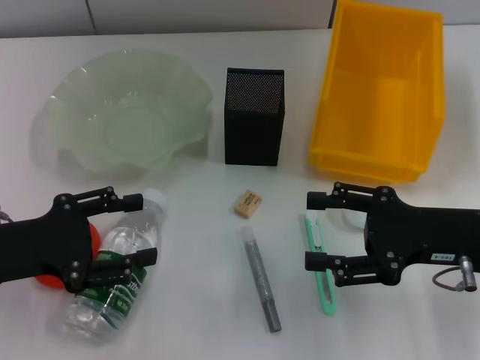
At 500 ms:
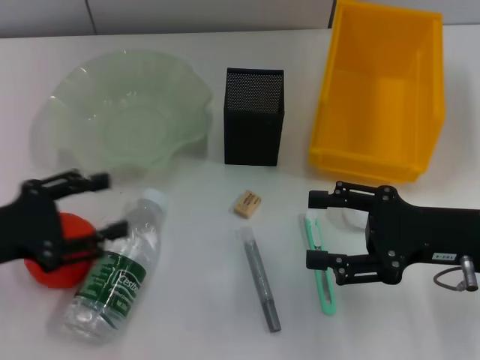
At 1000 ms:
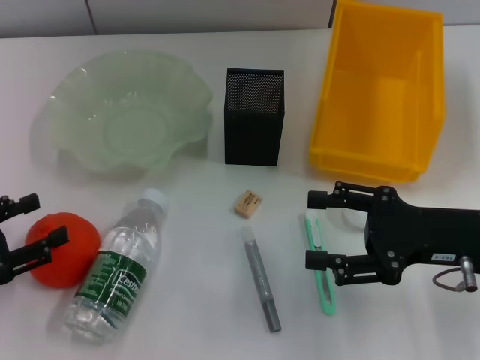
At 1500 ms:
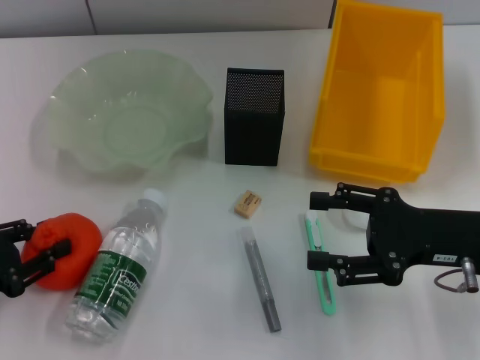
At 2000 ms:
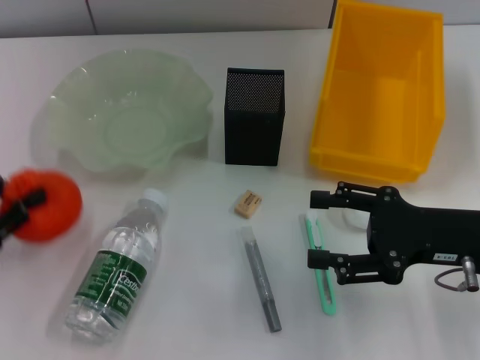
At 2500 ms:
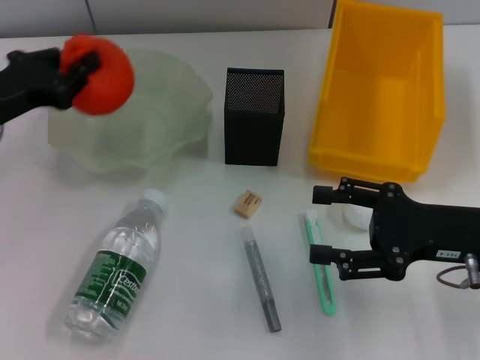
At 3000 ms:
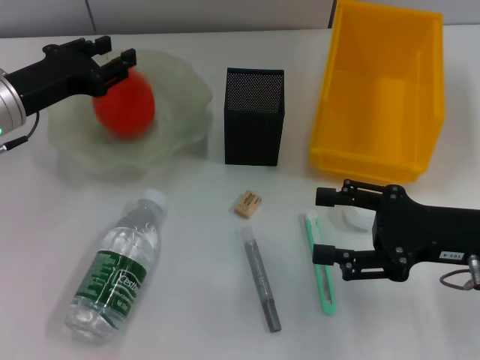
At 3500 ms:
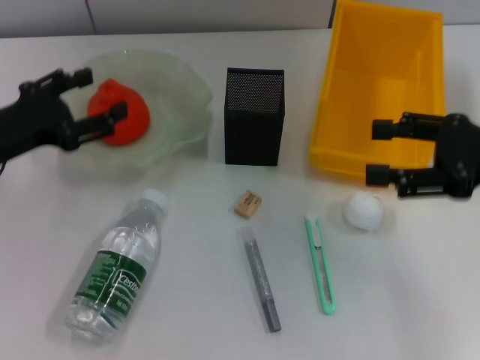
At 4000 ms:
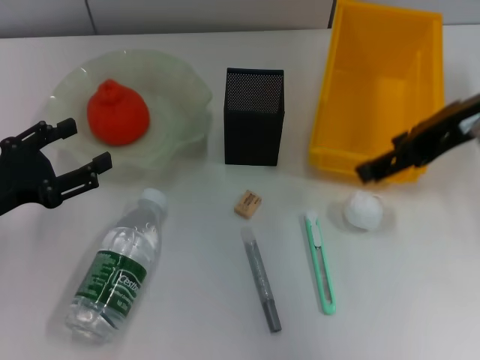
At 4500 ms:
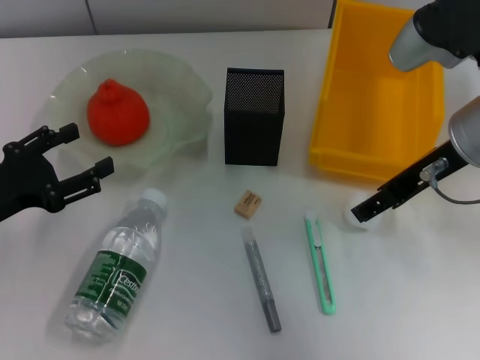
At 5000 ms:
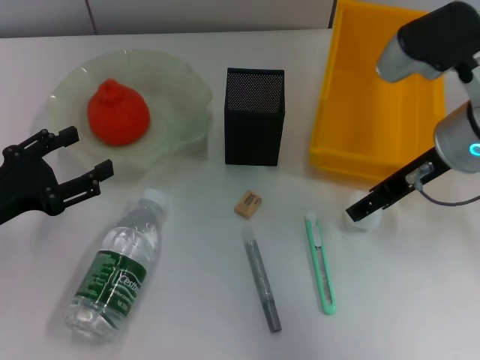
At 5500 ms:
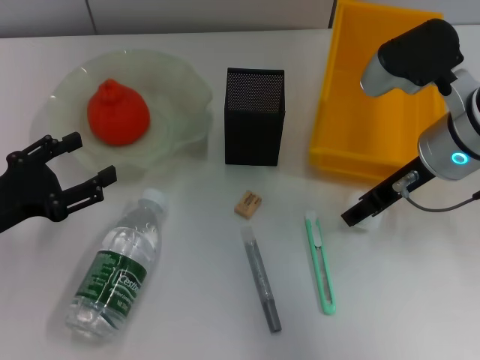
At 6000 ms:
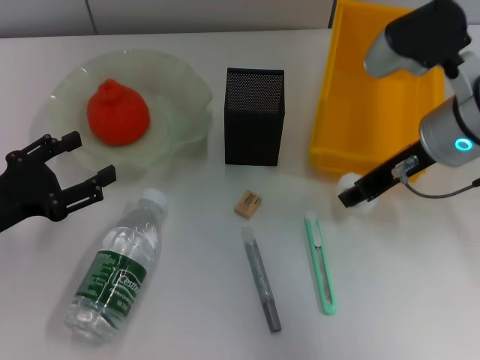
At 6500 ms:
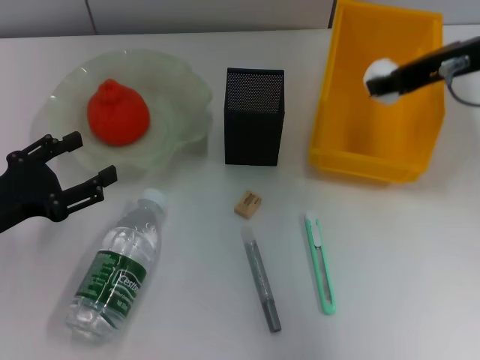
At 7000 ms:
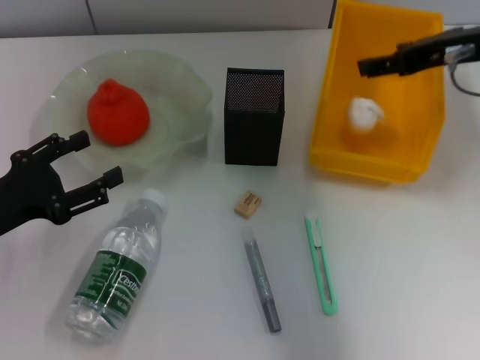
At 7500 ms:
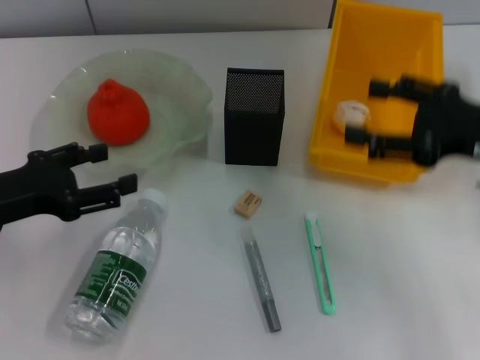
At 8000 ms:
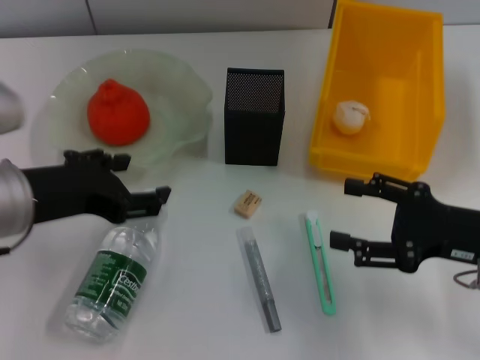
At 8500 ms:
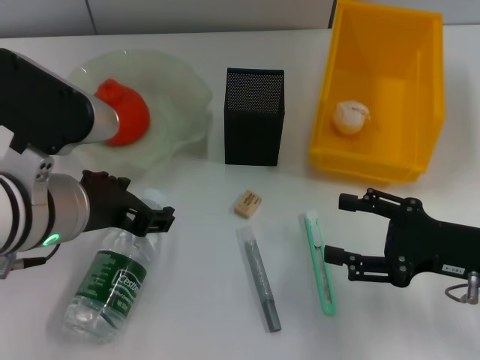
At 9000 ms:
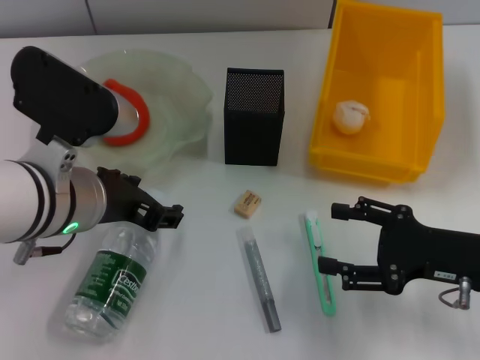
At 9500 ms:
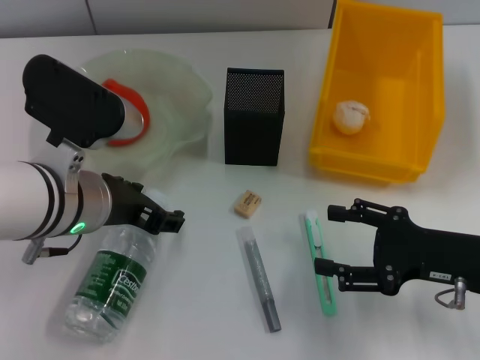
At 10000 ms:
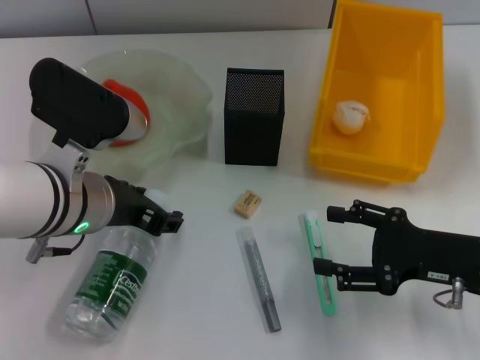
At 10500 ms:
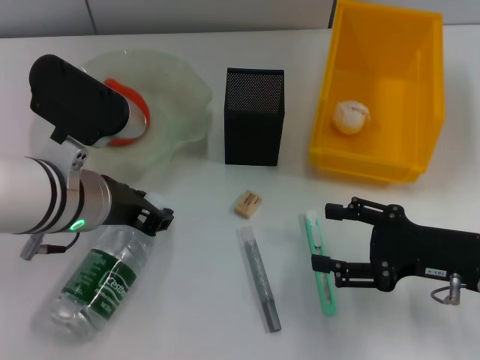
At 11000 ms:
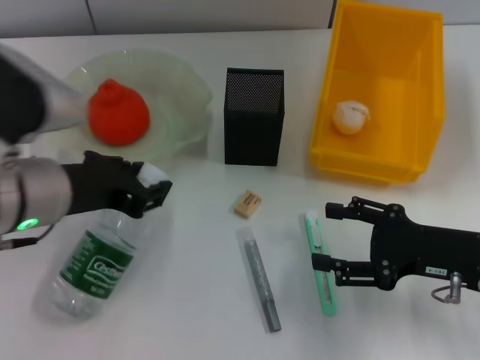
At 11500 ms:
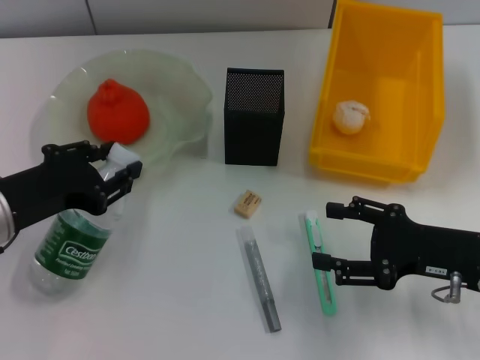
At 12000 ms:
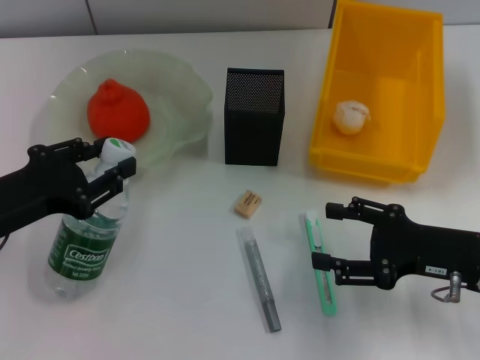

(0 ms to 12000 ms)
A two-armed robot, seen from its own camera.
Step, 0 ms - 1500 ms: Grab the orange with the left hand.
Step, 2000 ms - 3000 ms: Place the orange into the fruit bowl with the left hand.
Step, 3500 ms - 5500 ms: Grab the paper ball with the right hand.
Step, 6000 ms - 7000 ms: Place the paper ball into the trash can with the right hand.
Step, 7500 ms - 10000 ms: Grab the water bottle with the left hand.
0 ms - 2000 ms: The left gripper goes roughly 5 cm to the left, and closes up.
2000 ms - 4000 ms: The left gripper travels forward and back again, some 15 cm each way, and opens. The right gripper moves upward, approximately 15 cm.
4000 ms - 6000 ms: The right gripper heads downward, covering some 10 cm, and closes its fingers.
6000 ms - 8000 ms: The right gripper shifts roughly 15 cm backward, to the right and downward, and opens its fingers. The left gripper travels to the right and upward by about 15 cm.
8000 ms - 10000 ms: The left gripper heads to the right, covering some 5 cm.
10000 ms - 12000 ms: The left gripper moves to the left, approximately 10 cm, and closes up.

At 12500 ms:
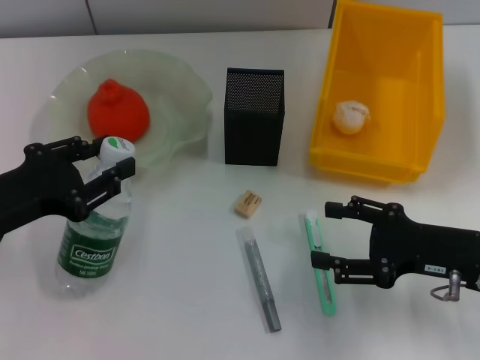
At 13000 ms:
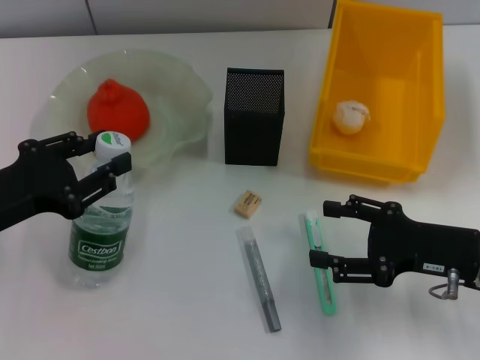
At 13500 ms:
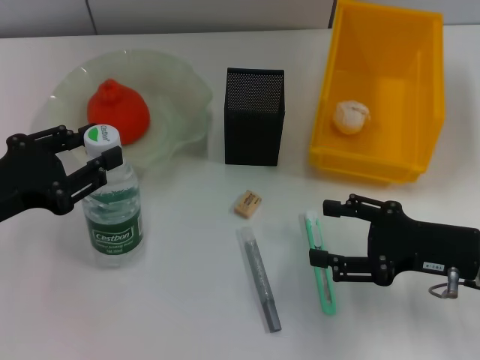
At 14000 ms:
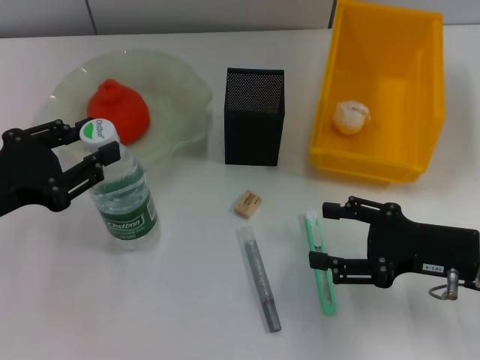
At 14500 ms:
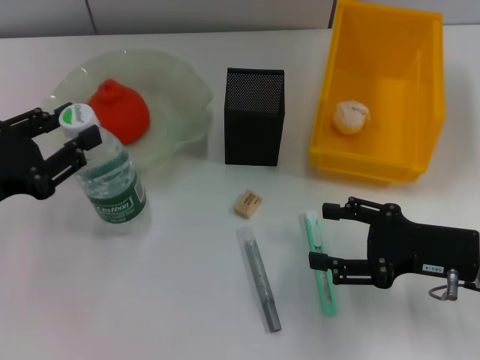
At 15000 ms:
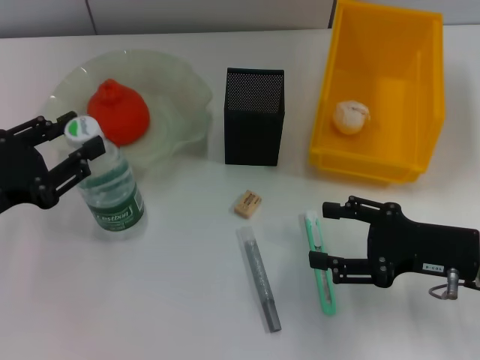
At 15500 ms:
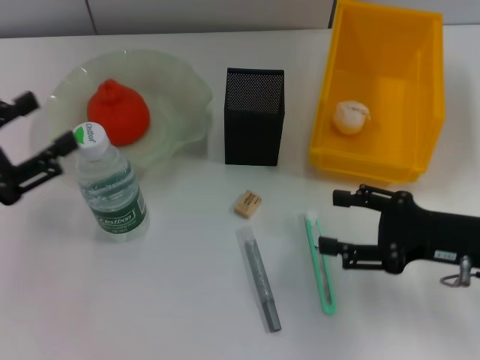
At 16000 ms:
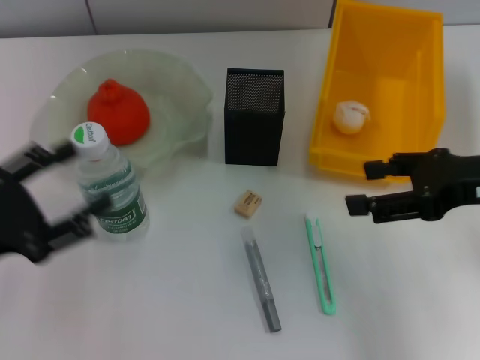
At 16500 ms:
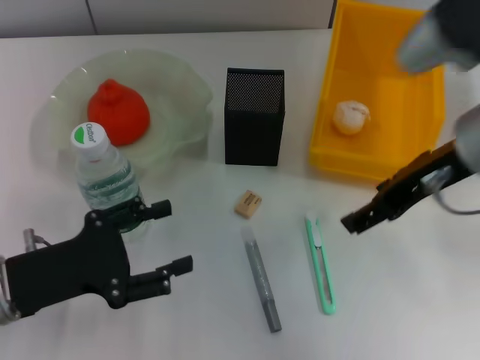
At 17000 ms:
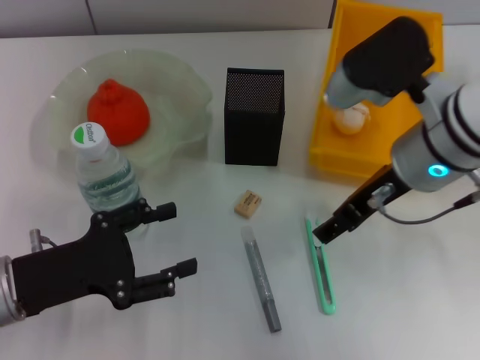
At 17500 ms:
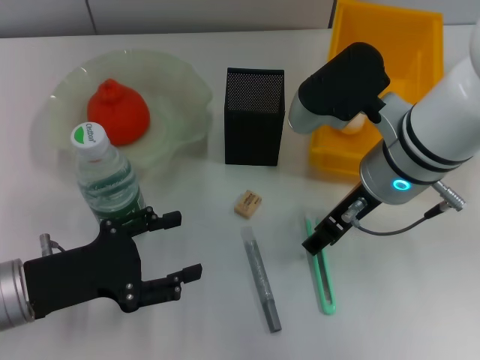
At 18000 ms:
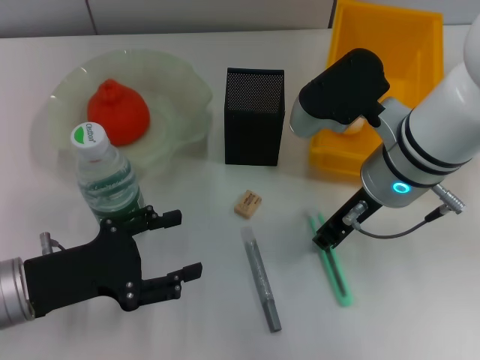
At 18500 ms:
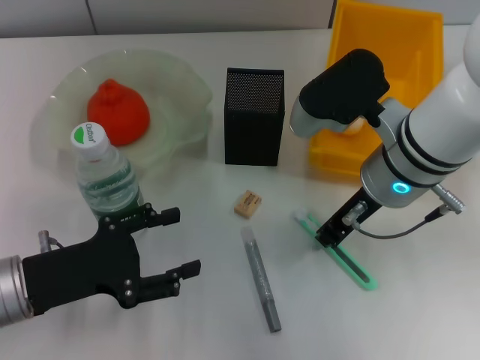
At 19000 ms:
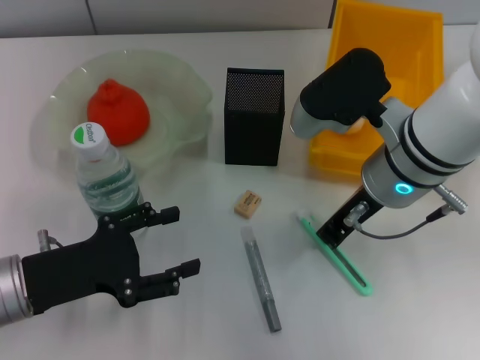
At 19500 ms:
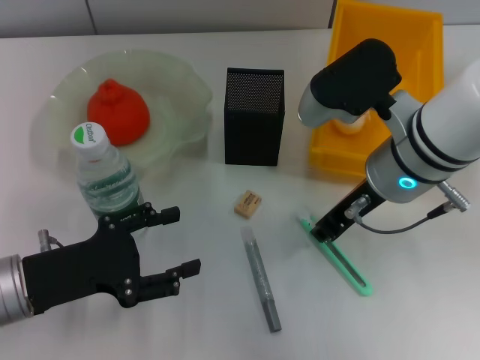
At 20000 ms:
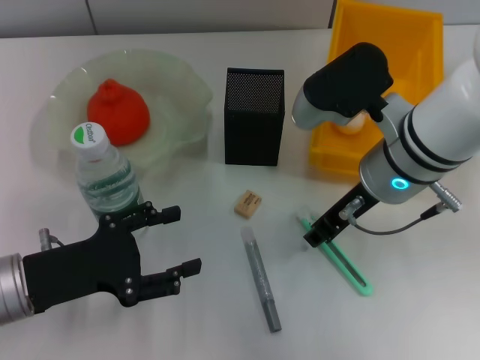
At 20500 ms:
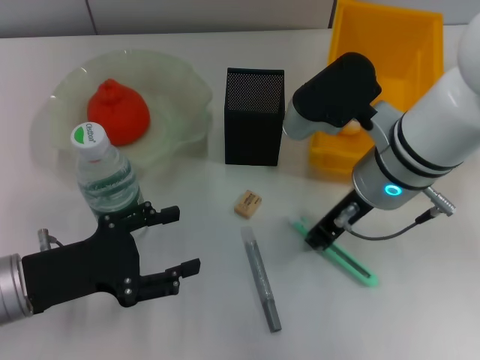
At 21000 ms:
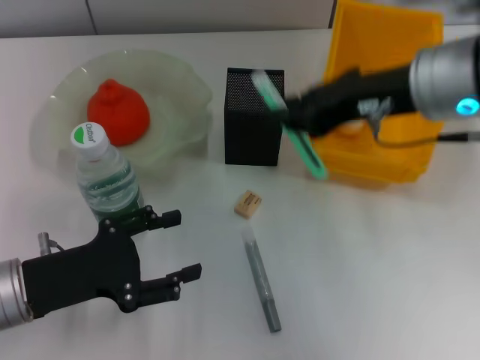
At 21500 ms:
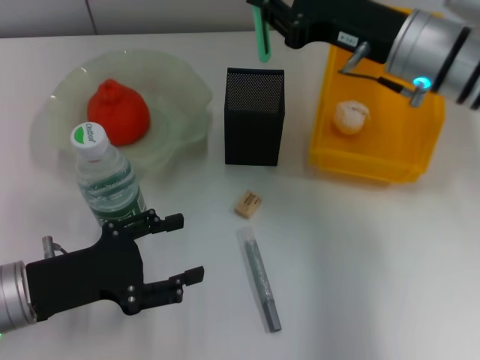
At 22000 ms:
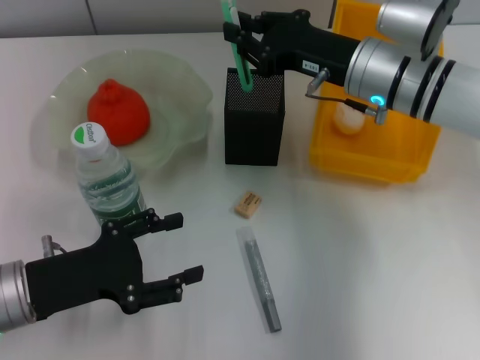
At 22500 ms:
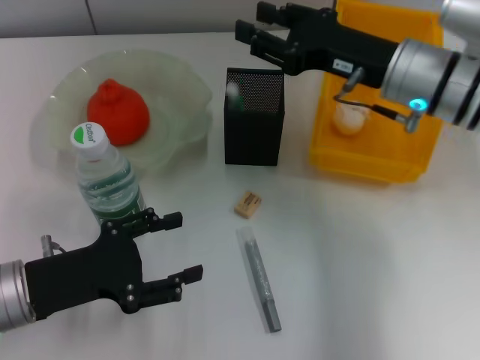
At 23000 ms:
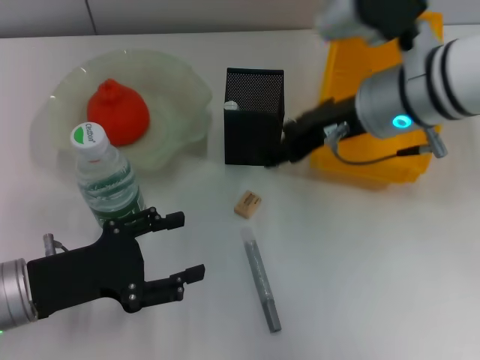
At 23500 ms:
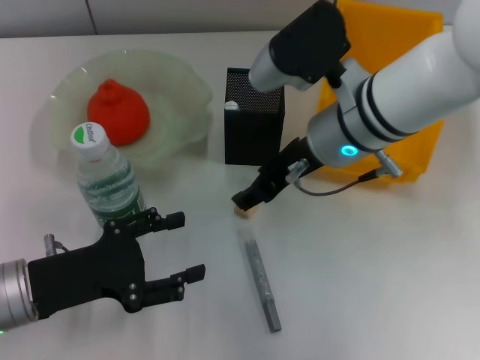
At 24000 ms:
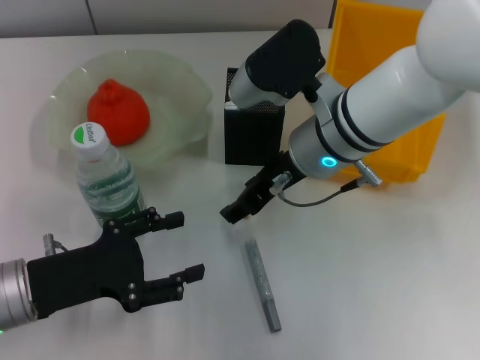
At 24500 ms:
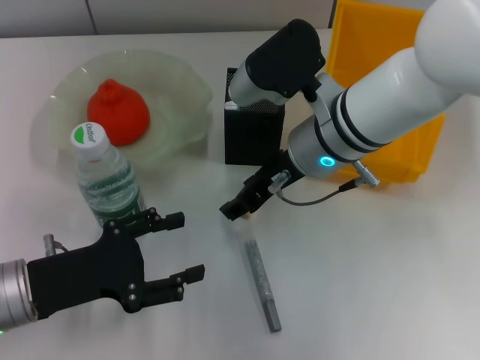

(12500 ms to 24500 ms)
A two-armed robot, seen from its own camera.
Step, 12500 ms - 15000 ms: Place the water bottle on the table with the left hand.
Step, 15500 ms - 20000 ms: Grab the blue utility knife with the right hand.
Step, 20500 ms - 22000 ms: Place the blue utility knife into the pen holder with the right hand.
12500 ms - 14500 ms: The grippers move only a little.
14500 ms - 16500 ms: The left gripper heads downward, covering roughly 5 cm, and opens. Meanwhile the right gripper shifts approximately 15 cm upward and to the left.
16500 ms - 18500 ms: The right gripper goes approximately 10 cm downward and to the left, and closes.
18500 ms - 20500 ms: Both grippers stay put.
20500 ms - 22500 ms: The right gripper heads to the right, covering roughly 5 cm, and travels upward and back again, about 10 cm each way.
22500 ms - 24500 ms: The right gripper goes approximately 10 cm to the left, and opens.

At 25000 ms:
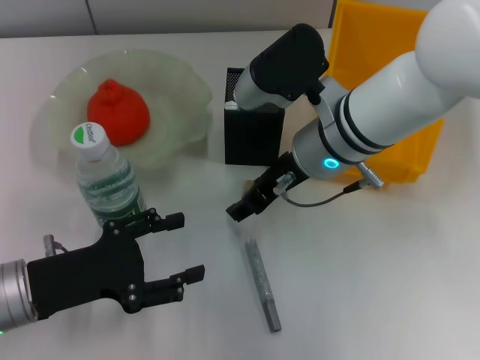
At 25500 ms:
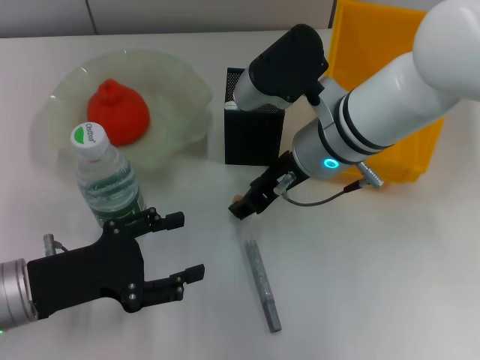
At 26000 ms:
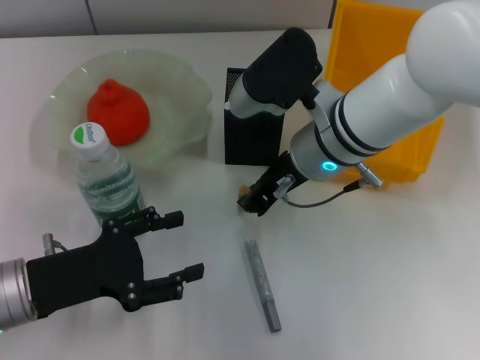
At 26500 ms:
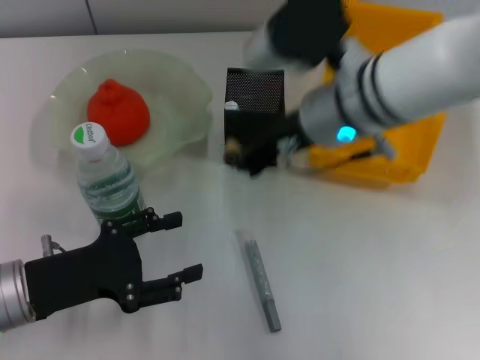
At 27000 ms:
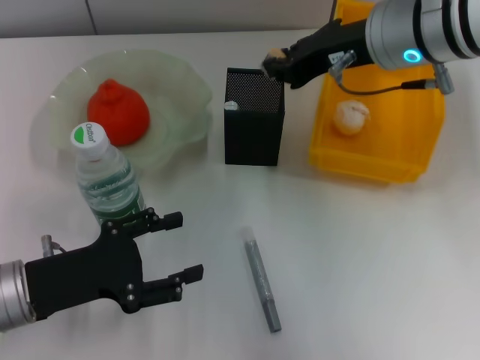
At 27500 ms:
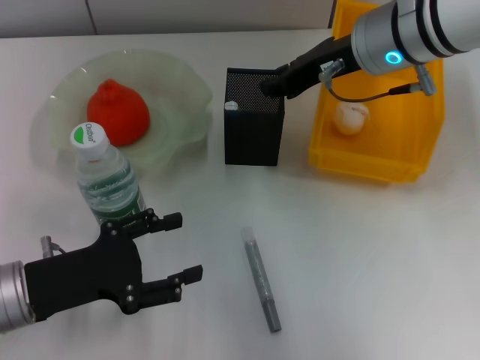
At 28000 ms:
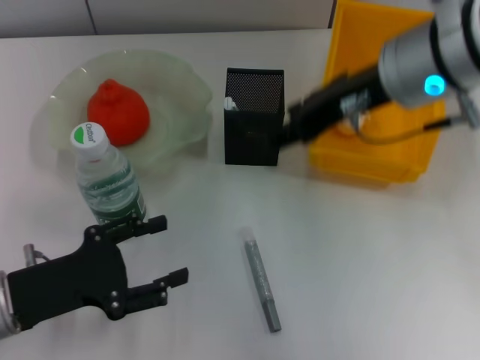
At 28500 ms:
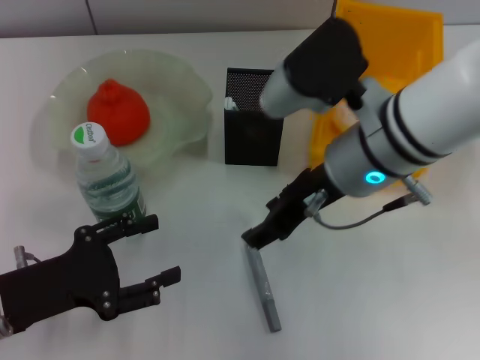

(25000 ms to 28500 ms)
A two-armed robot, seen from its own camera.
Step, 26500 ms - 27500 ms: Put the eraser into the pen holder with the right hand.
25000 ms - 27000 ms: The right gripper moves upward and to the right, roughly 10 cm, and closes its fingers.
27000 ms - 28500 ms: The right gripper is displaced backward and downward by approximately 10 cm, and opens its fingers.
